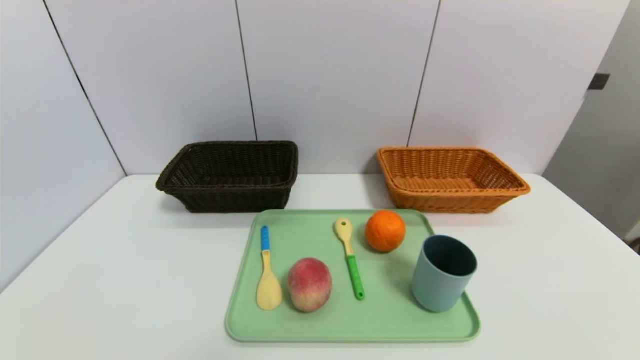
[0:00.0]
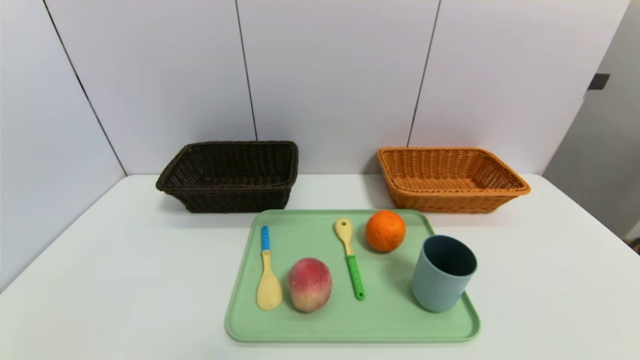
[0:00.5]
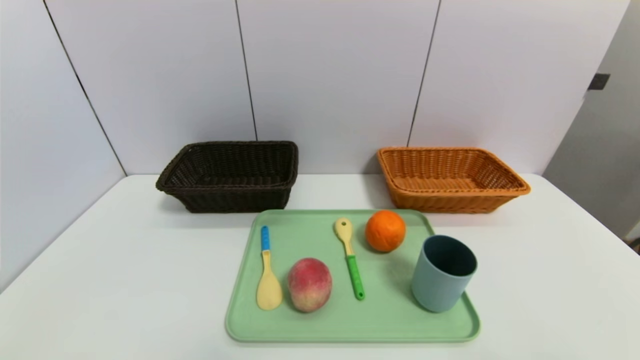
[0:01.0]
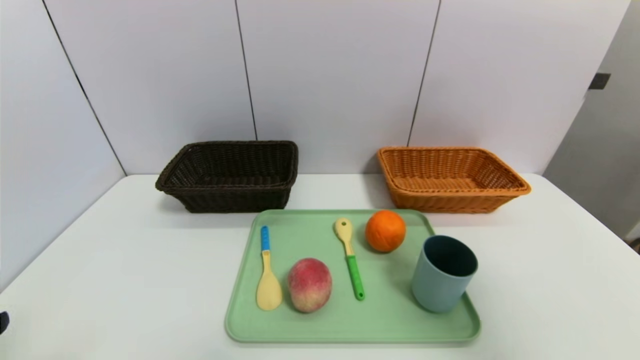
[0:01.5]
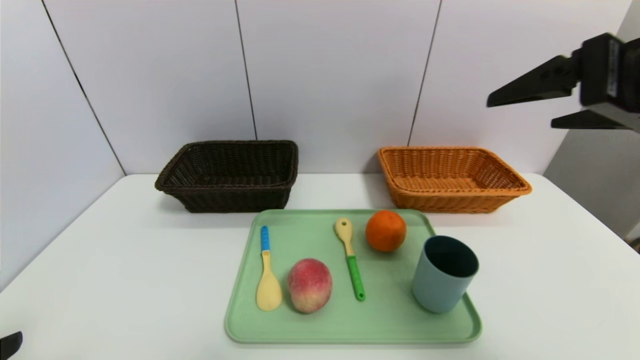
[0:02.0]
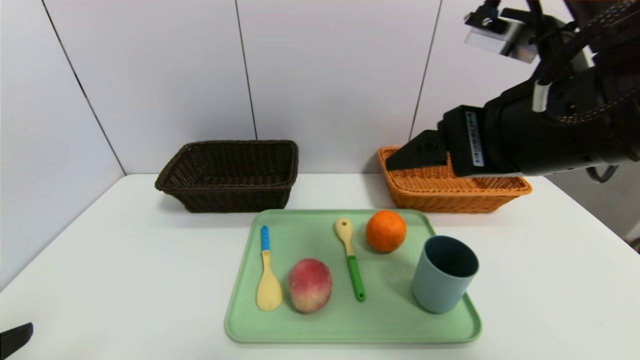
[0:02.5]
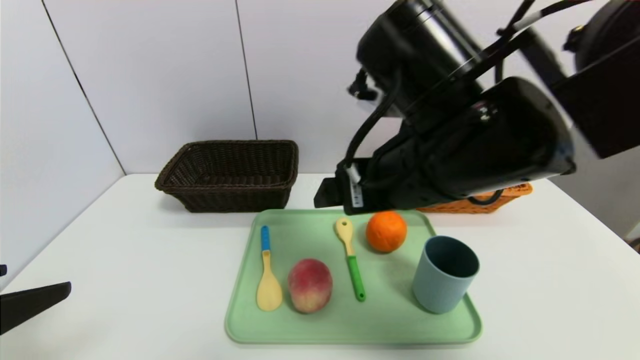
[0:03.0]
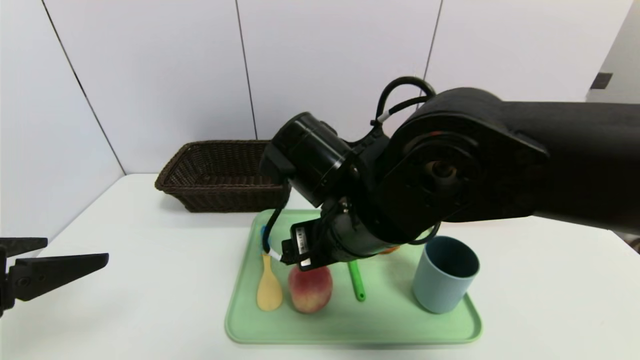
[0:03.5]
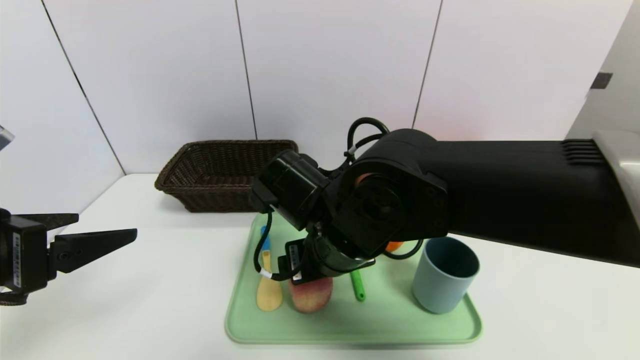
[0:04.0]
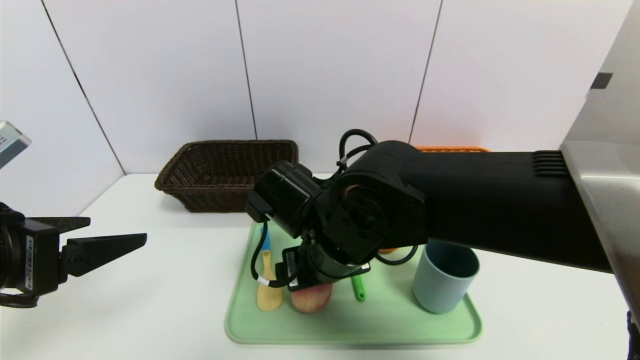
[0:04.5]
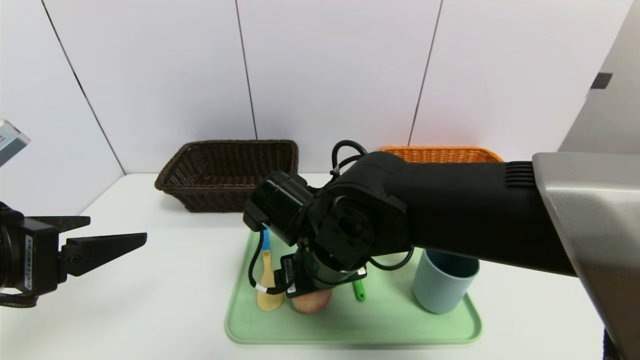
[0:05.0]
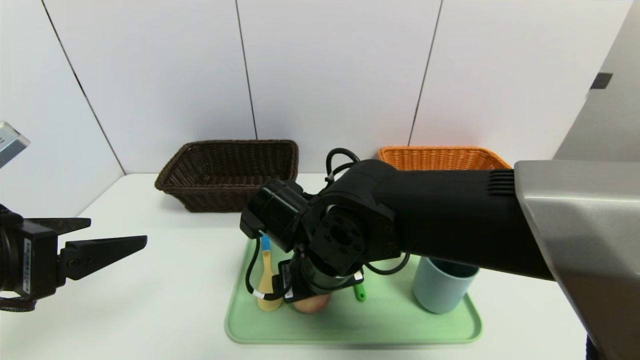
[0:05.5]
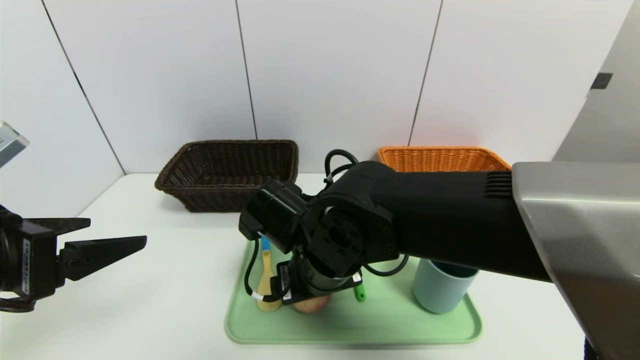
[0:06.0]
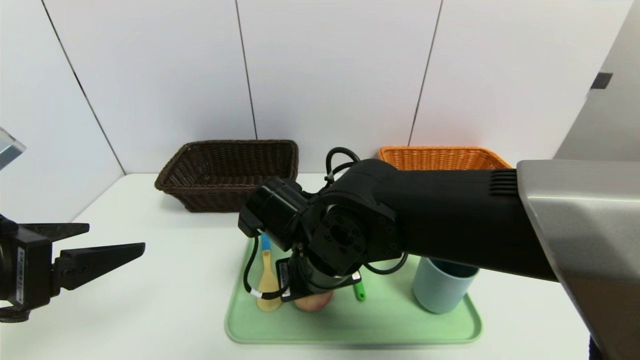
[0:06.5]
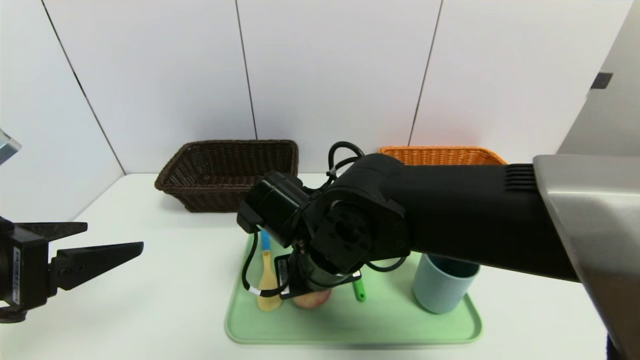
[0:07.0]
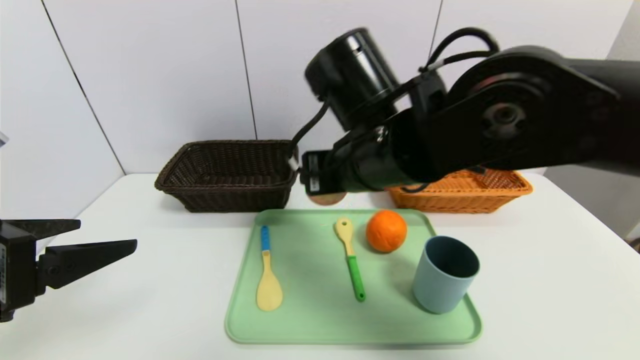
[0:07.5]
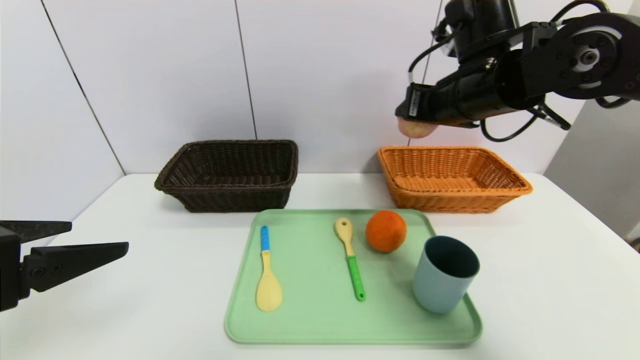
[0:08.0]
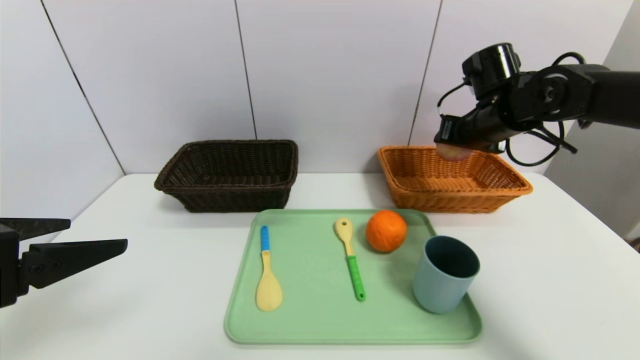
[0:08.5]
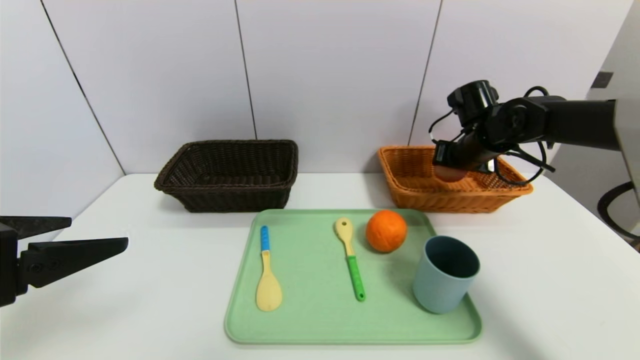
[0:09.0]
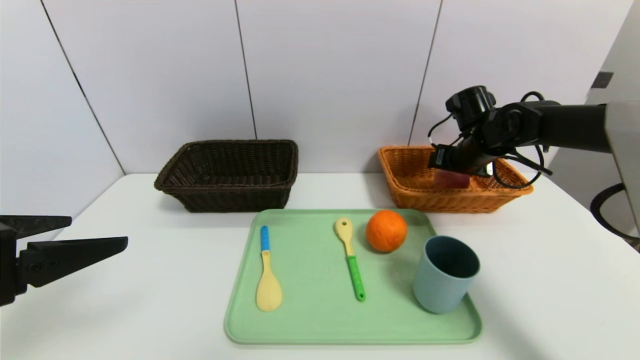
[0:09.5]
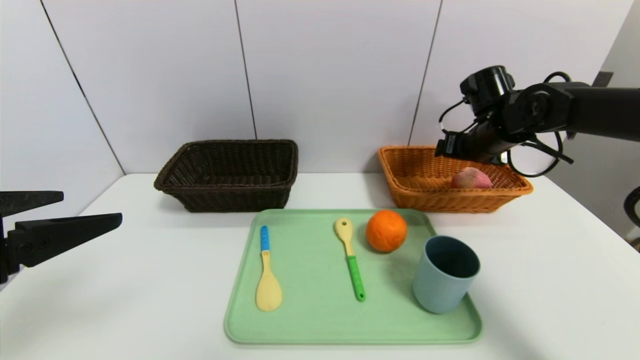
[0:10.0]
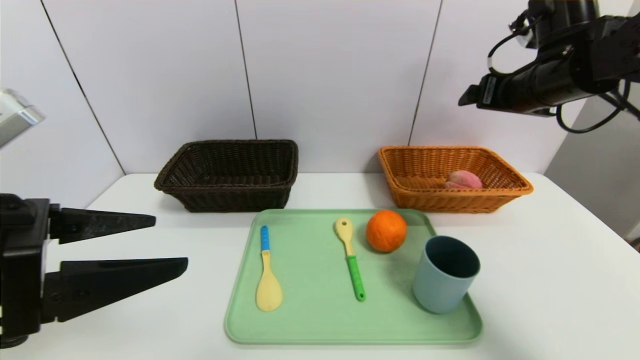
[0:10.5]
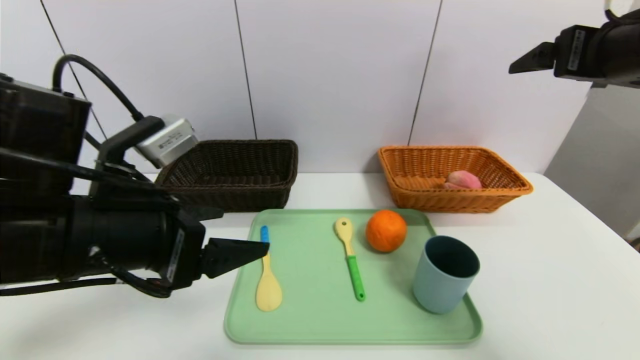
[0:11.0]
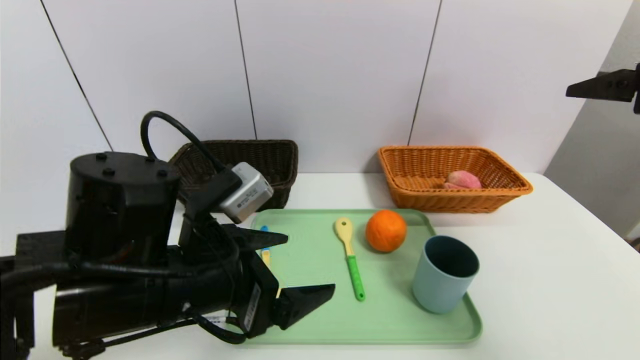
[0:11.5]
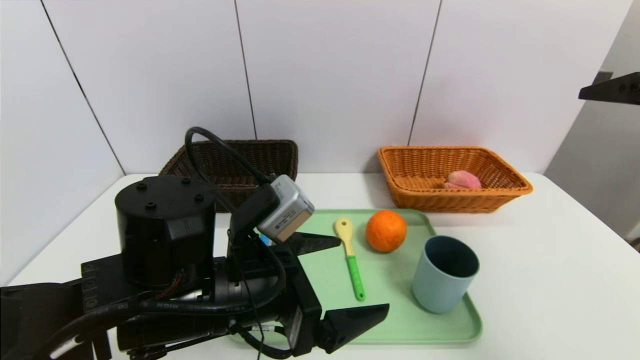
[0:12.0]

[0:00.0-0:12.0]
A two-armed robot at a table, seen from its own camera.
Task of the whole recording: place the food in the right basket with the right gripper, and place the non food items in the left basket with the left gripper.
Step, 0:00.0 to 0:09.5: Grasp the peach and put it in the right basket.
0:00.0 to 0:02.0: The left gripper heads upward, covering approximately 15 cm; the right gripper goes roughly 35 cm upward and forward.
0:02.0 to 0:04.0: The right gripper goes roughly 30 cm to the left and downward; the left gripper goes some 10 cm forward.
0:06.0 to 0:08.0: The right gripper travels to the right, upward and forward by some 25 cm, and closes.
0:08.0 to 0:10.0: The right gripper goes about 15 cm to the right, downward and forward, and opens up.
0:10.0 to 0:12.0: The right gripper is displaced backward and upward by about 25 cm, while the left gripper goes some 20 cm to the right and downward.

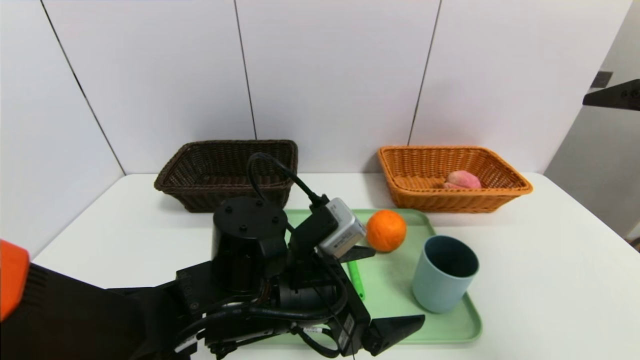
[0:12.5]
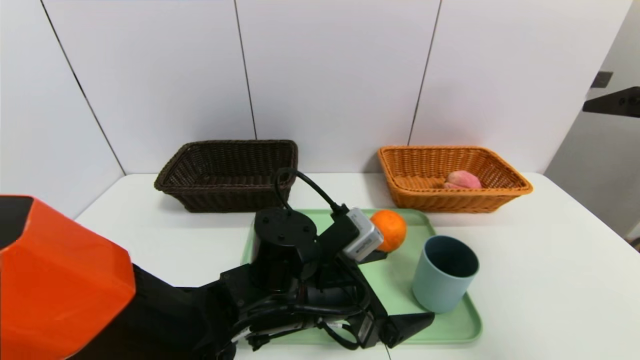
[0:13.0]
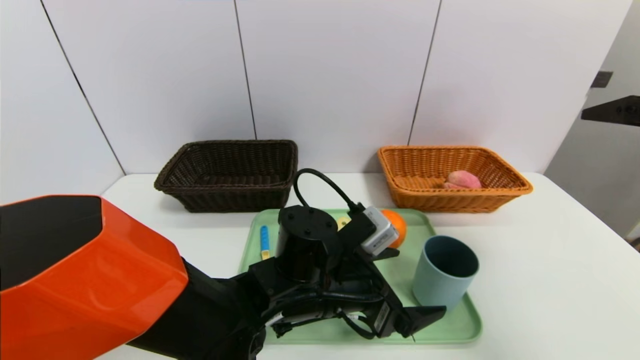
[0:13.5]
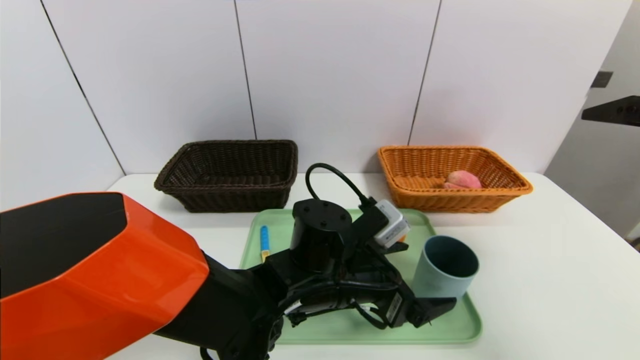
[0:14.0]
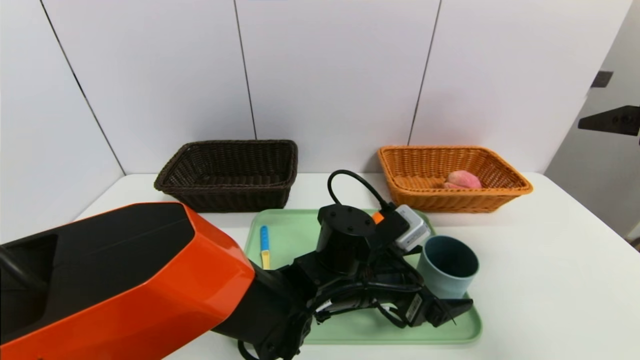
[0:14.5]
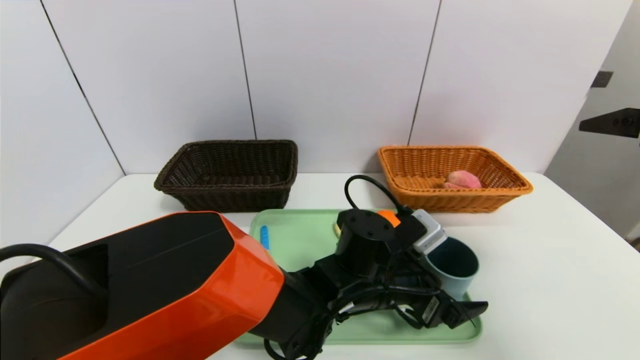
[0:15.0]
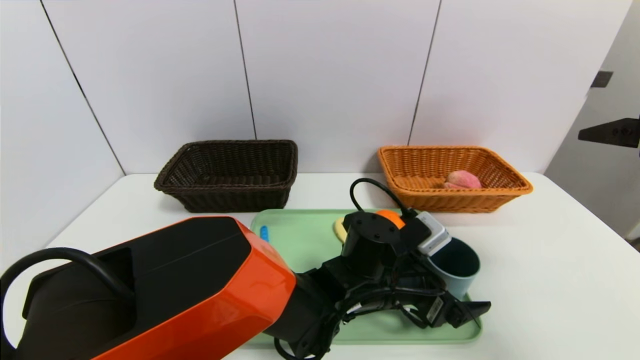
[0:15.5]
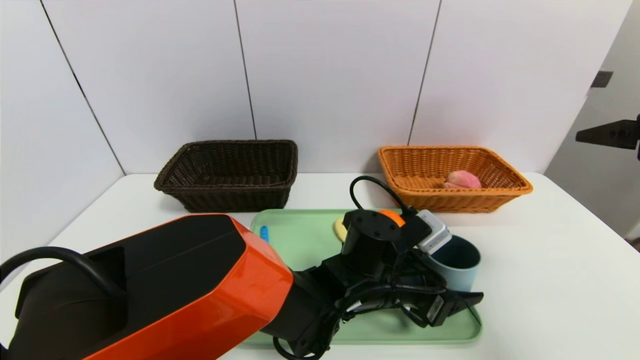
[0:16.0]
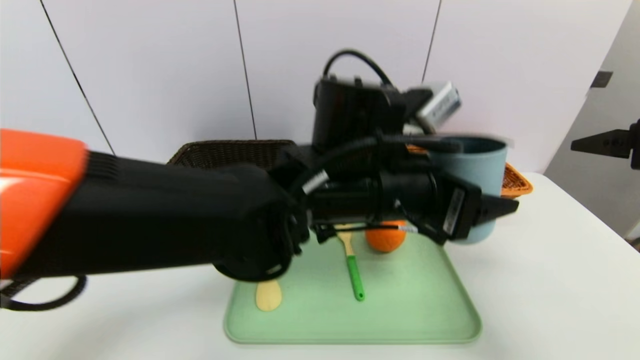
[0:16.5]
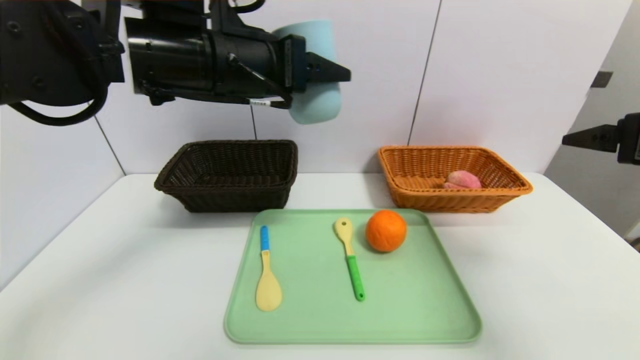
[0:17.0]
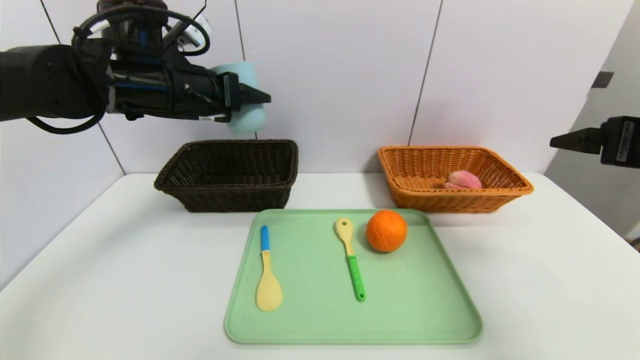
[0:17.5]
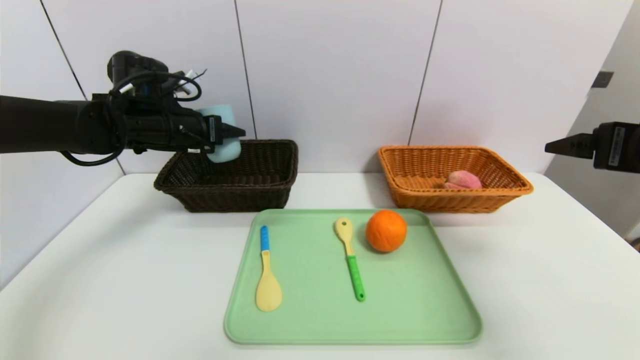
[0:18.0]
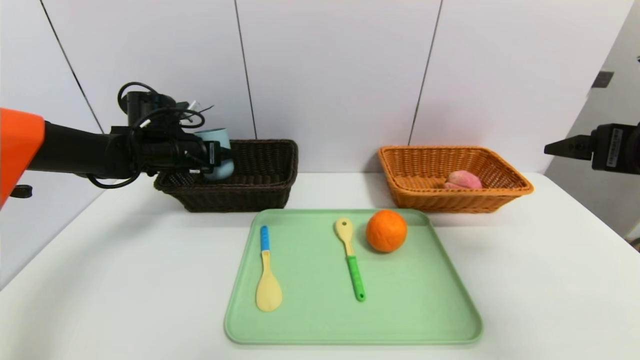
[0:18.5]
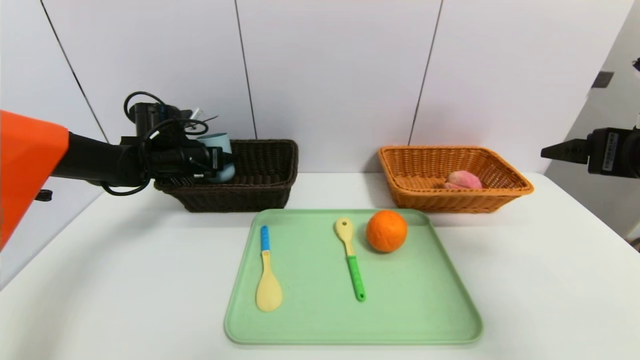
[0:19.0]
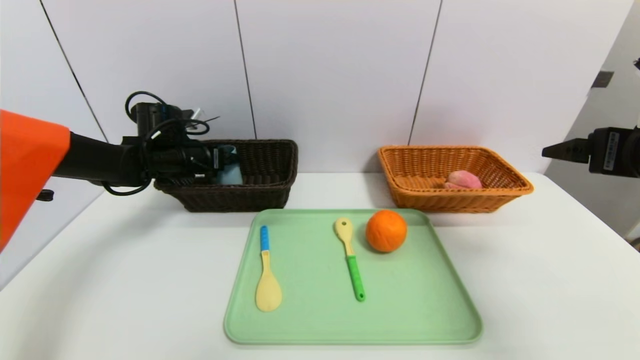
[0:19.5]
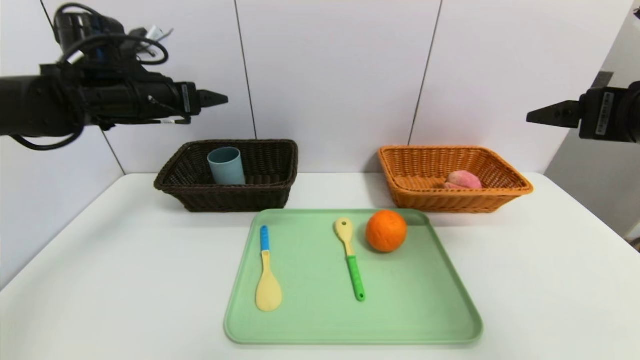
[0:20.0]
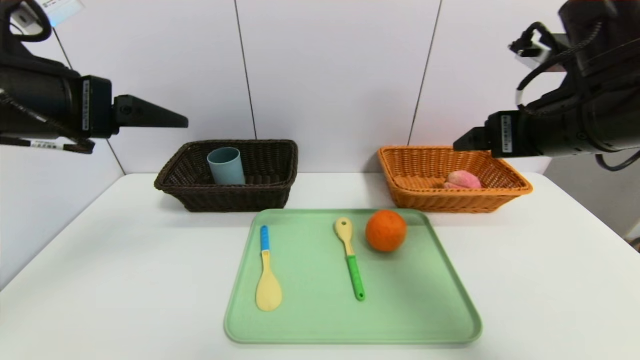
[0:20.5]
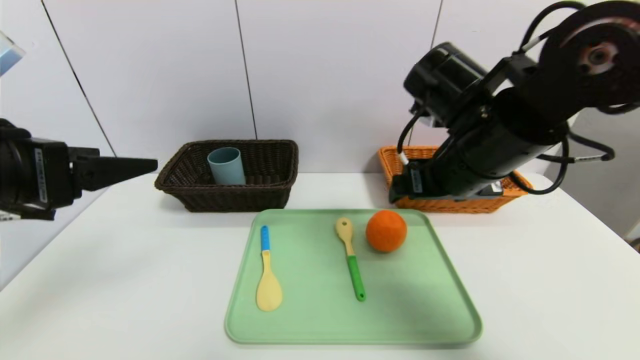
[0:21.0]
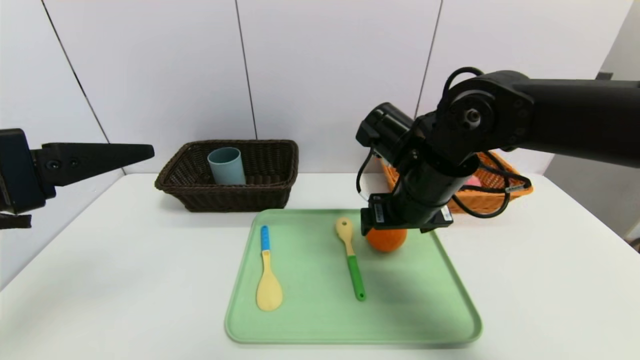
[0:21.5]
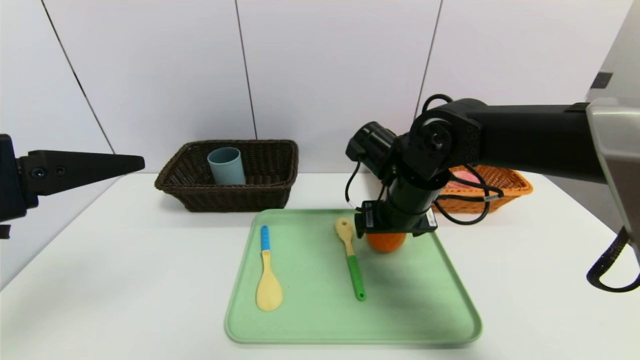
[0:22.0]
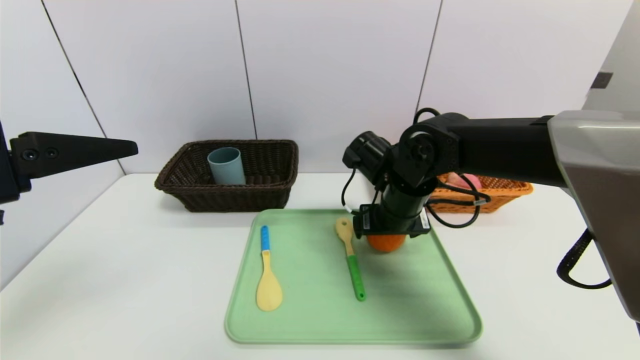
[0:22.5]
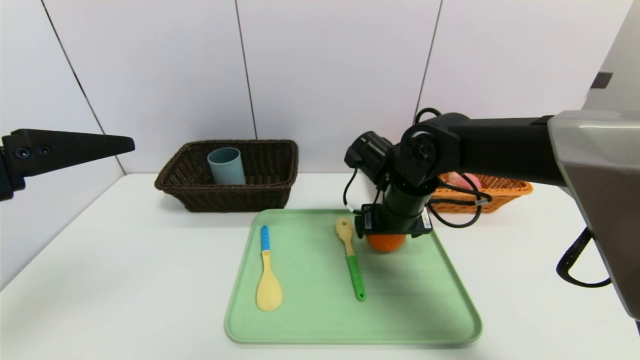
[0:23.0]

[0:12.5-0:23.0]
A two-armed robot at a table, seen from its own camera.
Task of the whole recording: place the food in the right basket with the right gripper, and place the non food items in the left basket with the left gripper.
Step, 0:12.5 to 0:20.0: Grasp the blue cup and put it in the left basket.
0:12.5 to 0:14.5: The left gripper is displaced to the right and forward by roughly 10 cm.
0:14.5 to 0:16.5: The left gripper moves upward, about 15 cm.
0:16.5 to 0:19.0: The left gripper shifts approximately 35 cm to the left and forward.
0:19.0 to 0:21.0: The right gripper goes roughly 20 cm to the left. The left gripper moves backward and upward, roughly 30 cm.
0:21.0 to 0:23.0: The right gripper is displaced downward and forward by about 10 cm.
